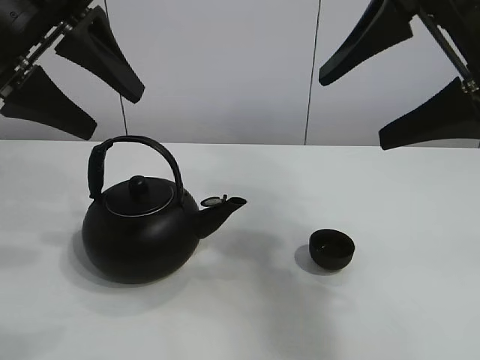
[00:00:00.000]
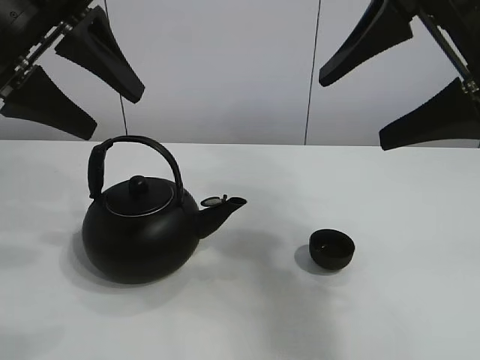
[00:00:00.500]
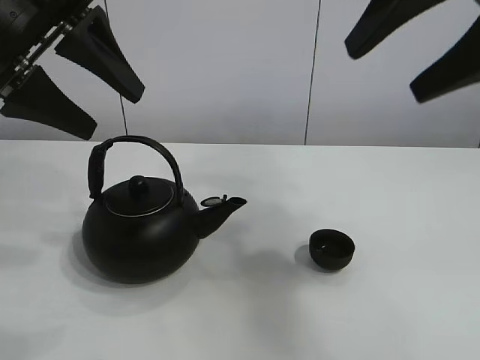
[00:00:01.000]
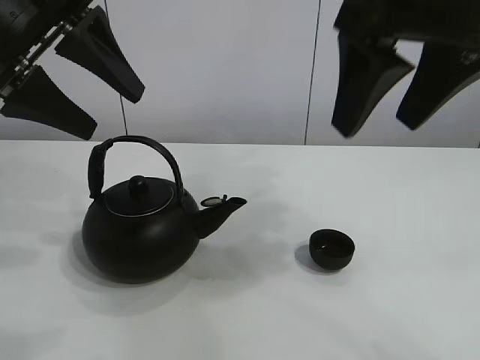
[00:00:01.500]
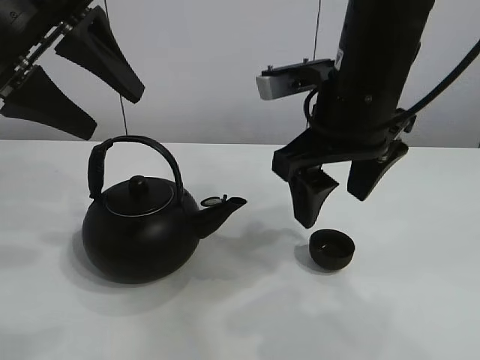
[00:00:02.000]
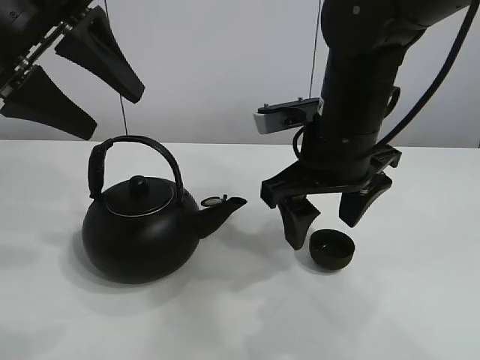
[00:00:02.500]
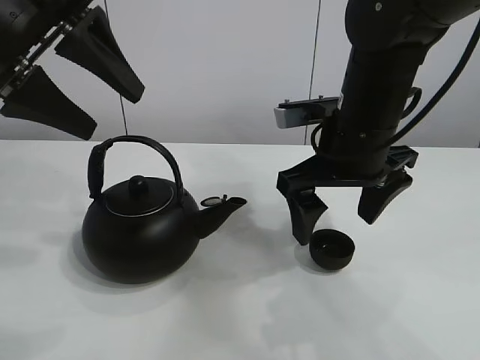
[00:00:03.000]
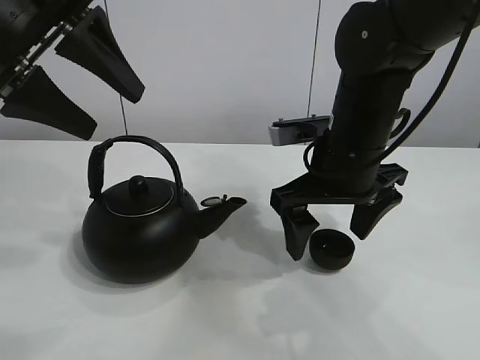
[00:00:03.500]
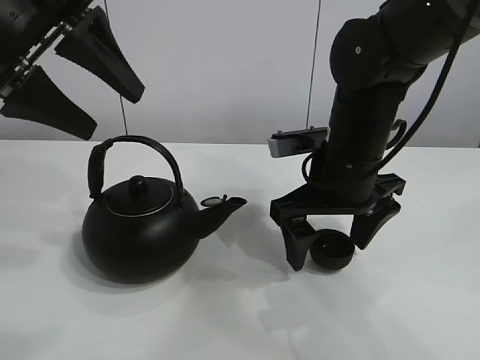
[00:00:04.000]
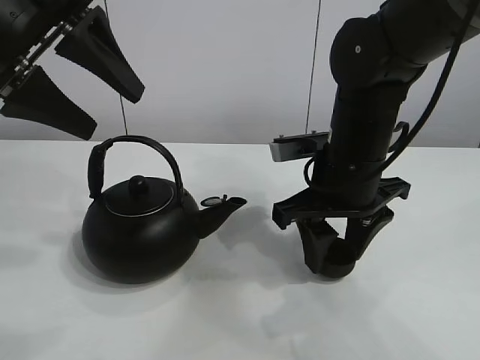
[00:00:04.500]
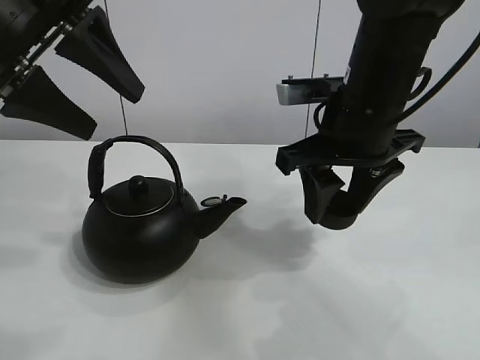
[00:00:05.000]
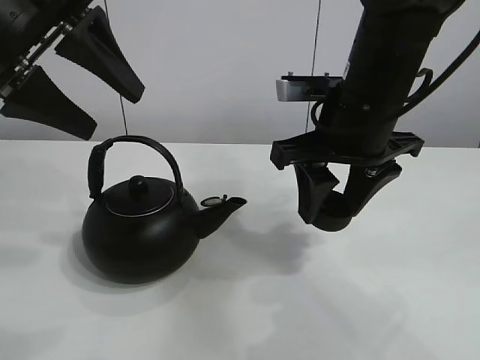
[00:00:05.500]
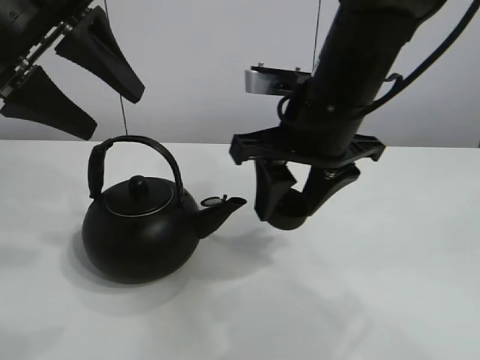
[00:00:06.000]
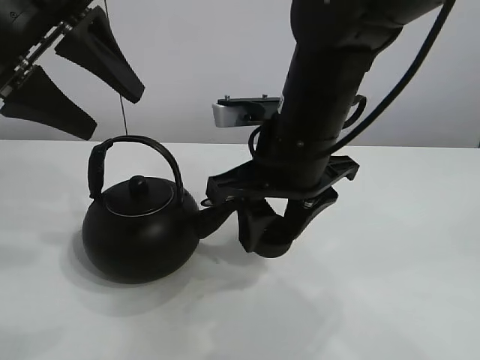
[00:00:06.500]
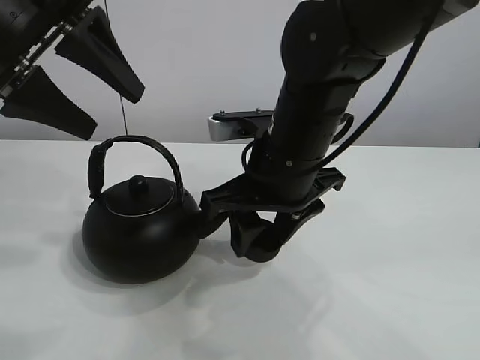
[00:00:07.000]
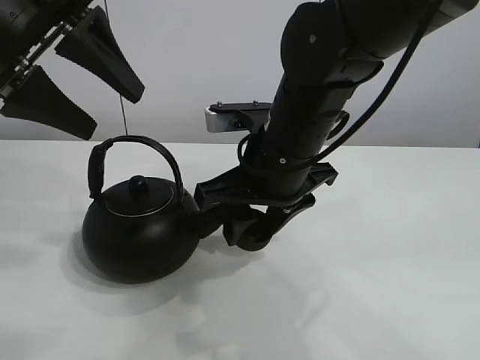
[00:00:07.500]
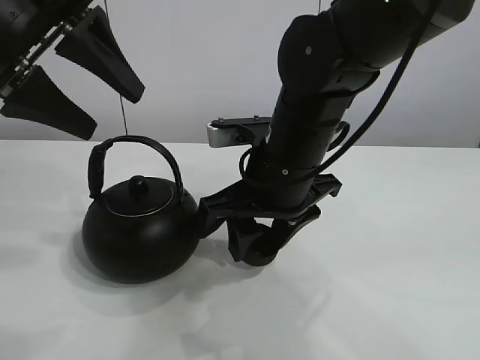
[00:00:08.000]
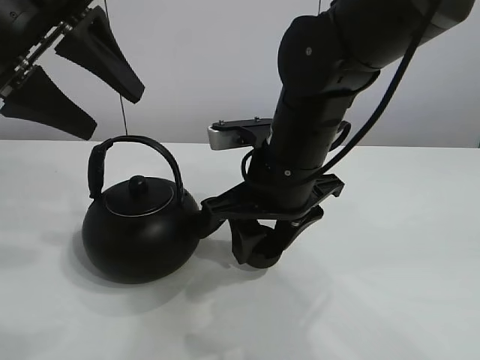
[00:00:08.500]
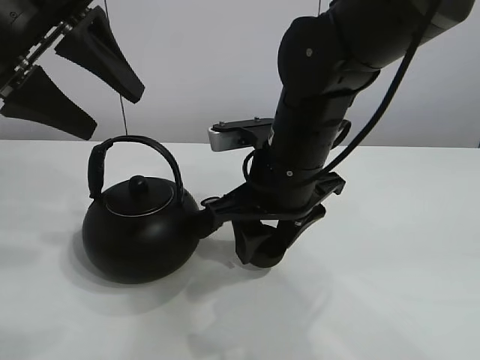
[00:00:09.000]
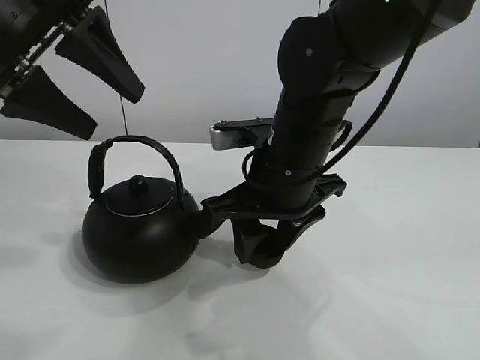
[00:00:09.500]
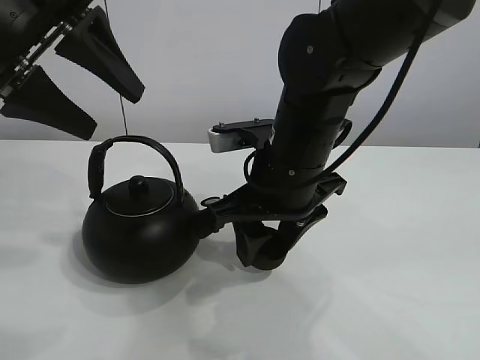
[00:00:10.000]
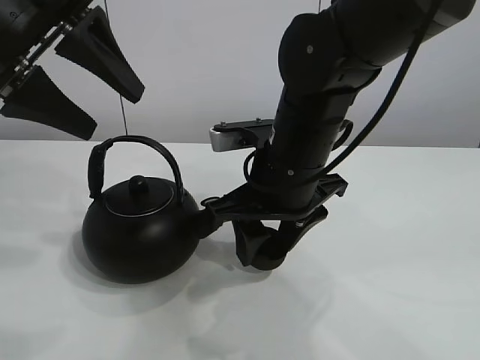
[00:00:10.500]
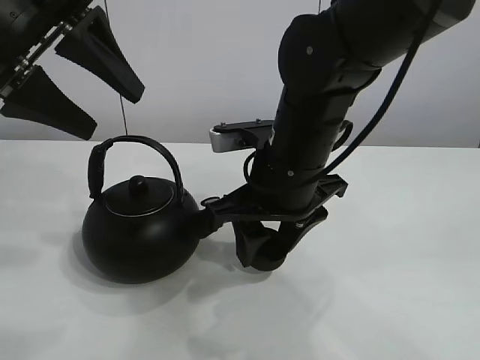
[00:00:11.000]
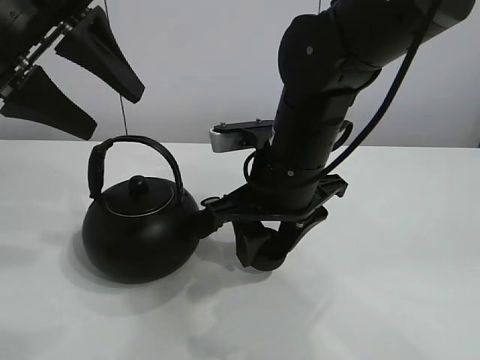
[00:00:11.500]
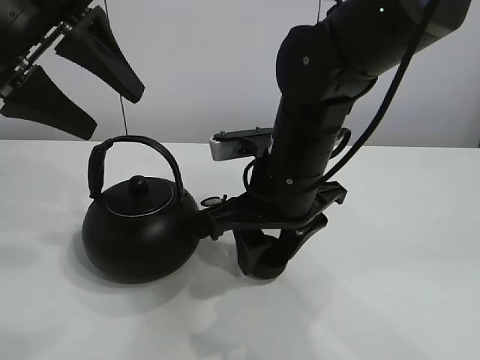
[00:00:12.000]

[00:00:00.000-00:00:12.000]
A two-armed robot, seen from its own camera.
Task of the whole recording: pour tea into the teacup.
Step, 00:00:00.000 to 00:00:04.500: Pick up the teacup with the right gripper.
00:00:02.000 to 00:00:04.000: The right gripper is displaced downward by some 5 cm, and opens its fingers.
00:00:04.000 to 00:00:06.000: The right gripper is displaced upward by roughly 5 cm, and closes its fingers.
00:00:06.000 to 00:00:08.000: The right gripper moves downward, approximately 5 cm.
00:00:08.000 to 00:00:12.000: Neither gripper changes place.

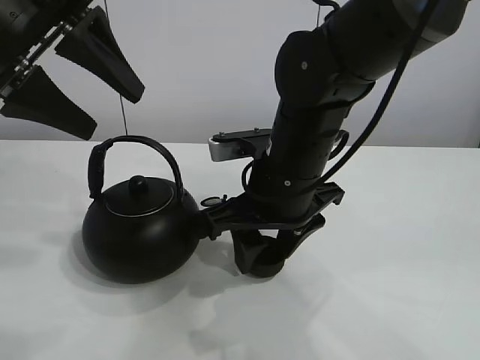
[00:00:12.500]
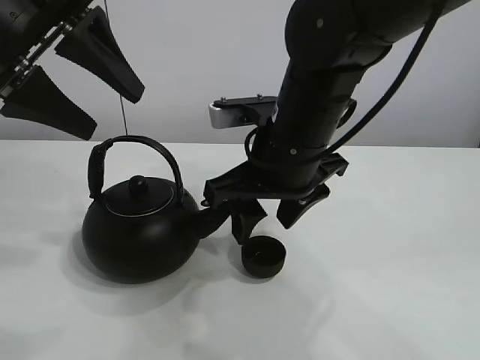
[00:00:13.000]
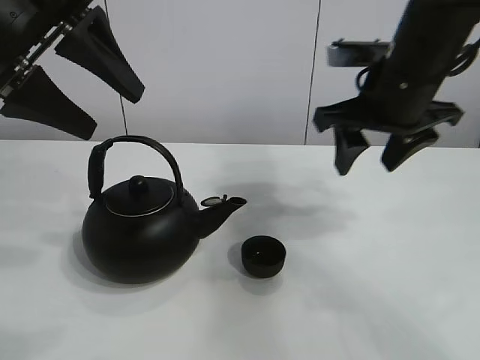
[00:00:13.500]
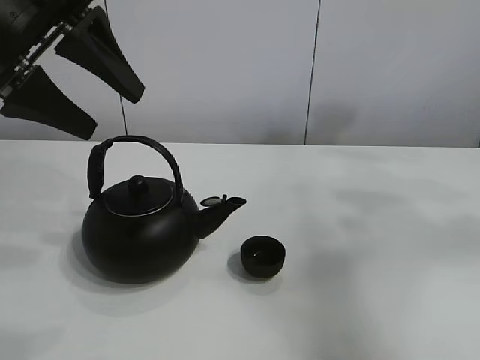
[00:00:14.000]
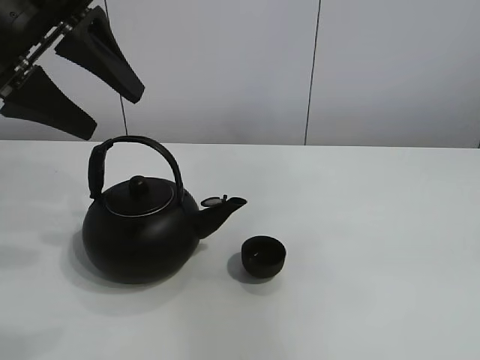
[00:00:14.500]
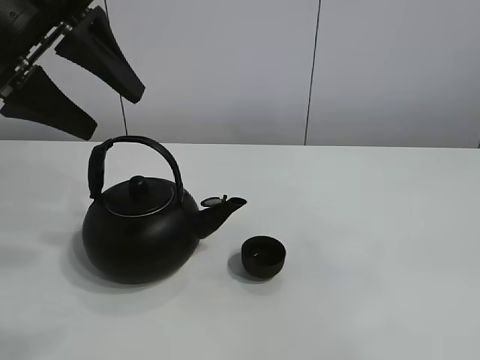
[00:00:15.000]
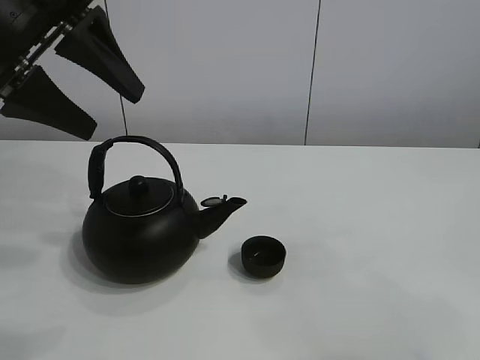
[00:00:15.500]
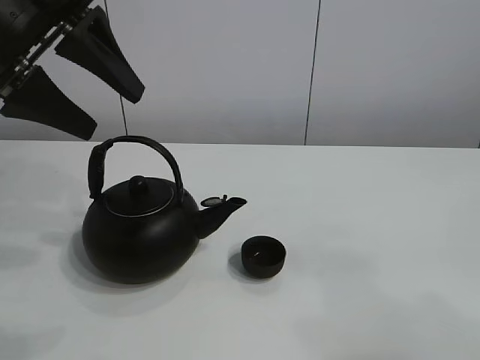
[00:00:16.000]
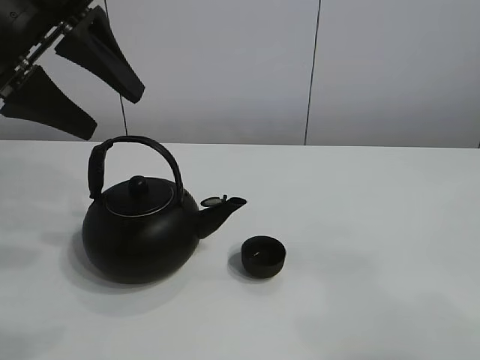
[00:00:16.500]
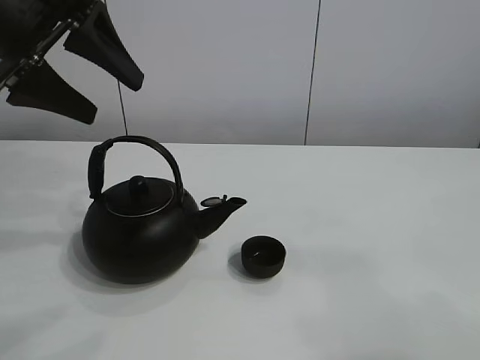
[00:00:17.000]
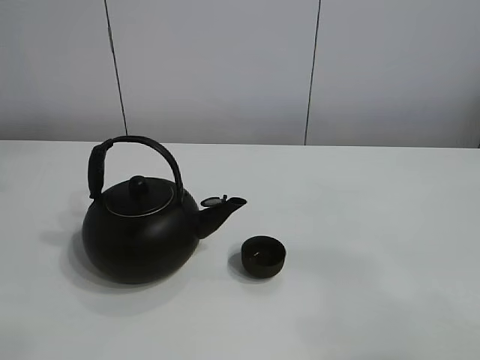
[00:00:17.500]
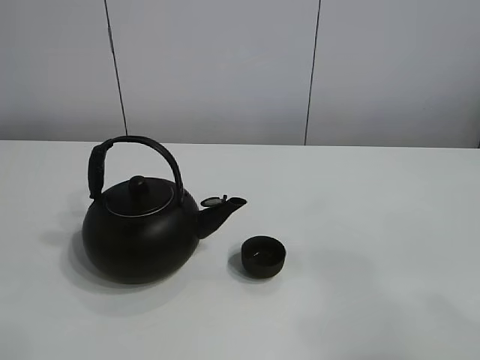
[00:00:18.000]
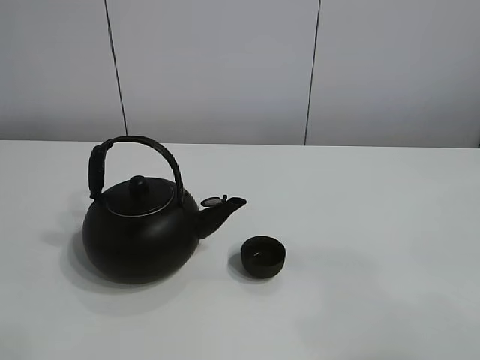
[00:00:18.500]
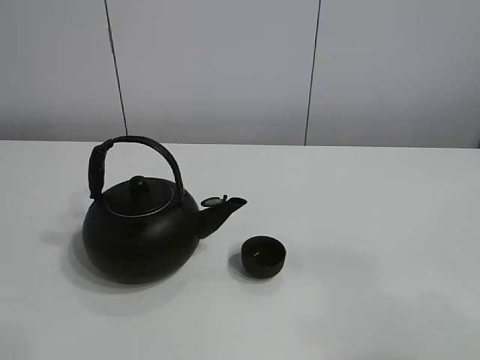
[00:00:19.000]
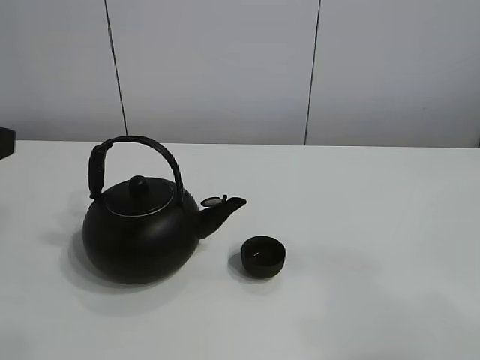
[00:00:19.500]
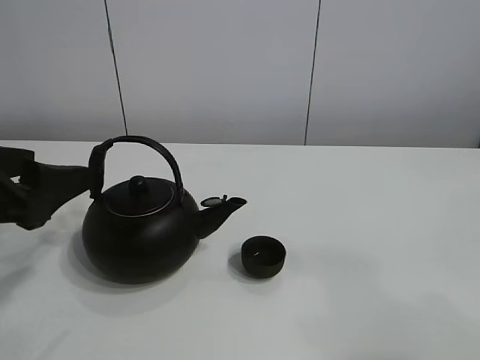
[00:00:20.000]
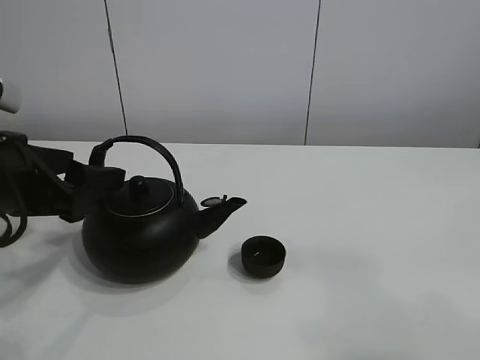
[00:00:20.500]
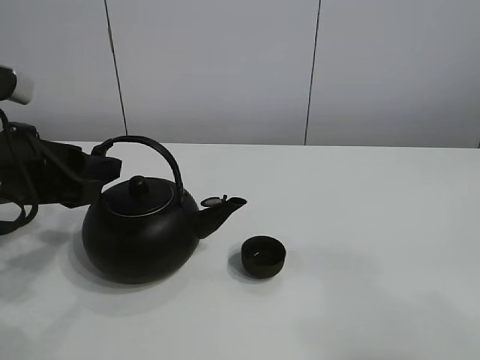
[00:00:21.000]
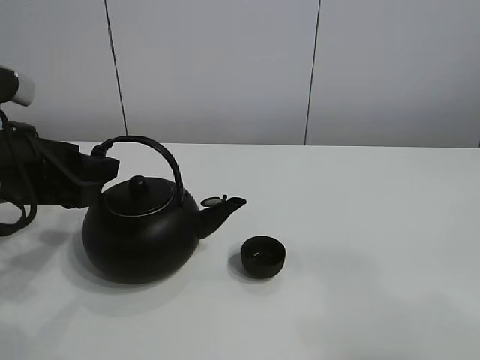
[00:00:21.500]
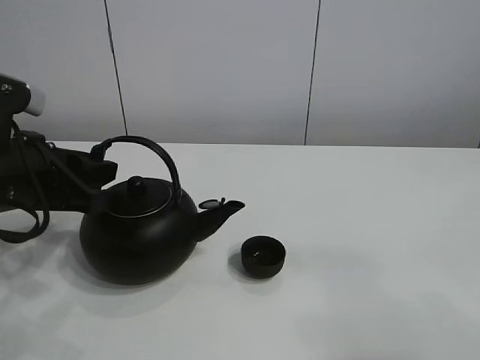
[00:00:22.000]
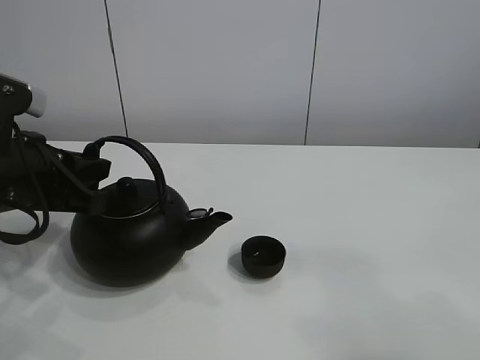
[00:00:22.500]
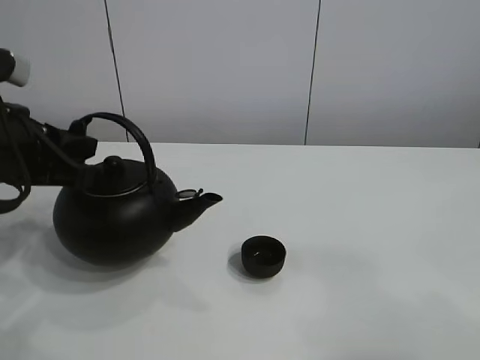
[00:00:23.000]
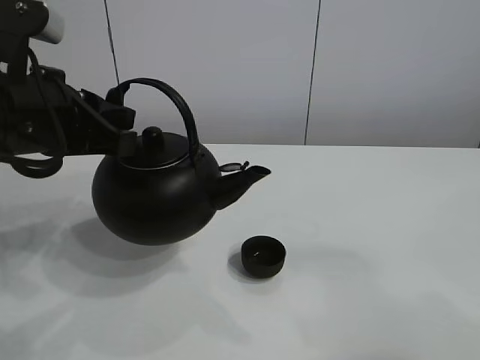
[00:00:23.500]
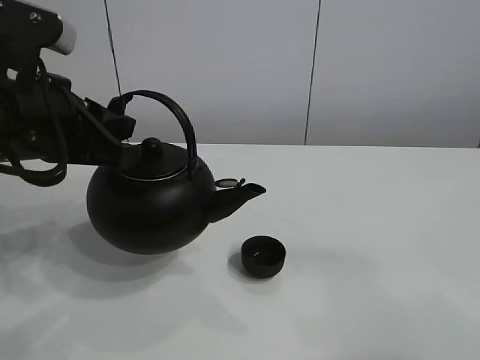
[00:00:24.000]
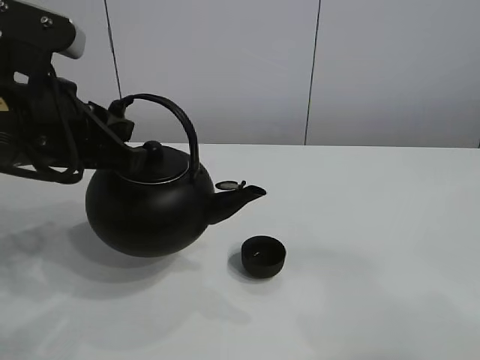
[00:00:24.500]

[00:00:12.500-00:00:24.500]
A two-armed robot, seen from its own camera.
Task of the whole recording: pour tea into the teacup.
Step, 00:00:13.000 to 00:00:22.500: Pick up the teapot with the left gripper.
00:00:12.500 to 00:00:14.500: The right gripper travels upward, backward and to the right by about 50 cm.
00:00:14.500 to 00:00:16.500: The right gripper goes approximately 20 cm downward.
00:00:16.500 to 00:00:18.500: The left gripper travels backward and to the left by approximately 20 cm.
00:00:18.500 to 00:00:20.500: The left gripper travels downward and forward by roughly 25 cm.
00:00:20.500 to 00:00:22.500: The left gripper closes its fingers.
00:00:22.500 to 00:00:24.500: The left gripper goes some 5 cm upward.

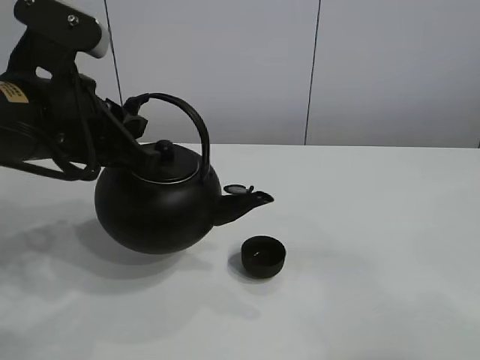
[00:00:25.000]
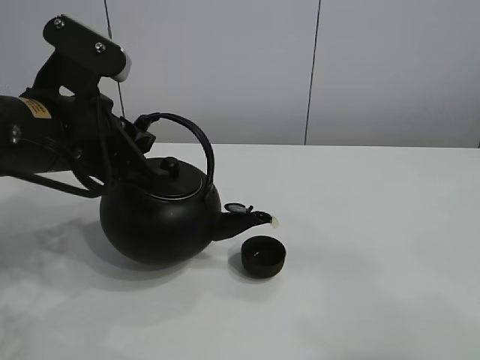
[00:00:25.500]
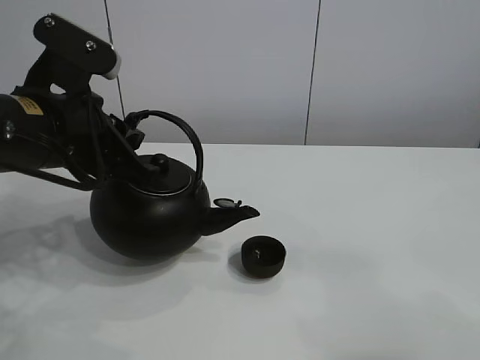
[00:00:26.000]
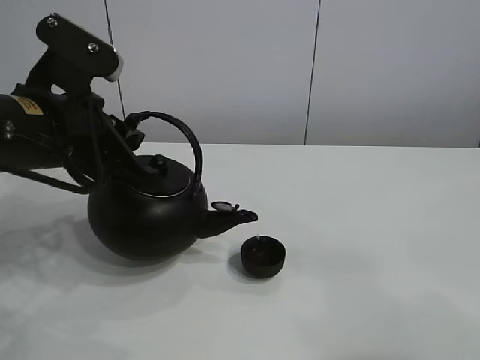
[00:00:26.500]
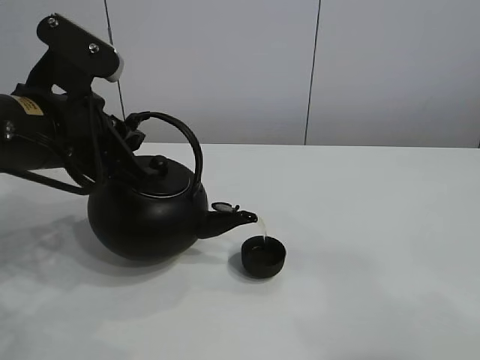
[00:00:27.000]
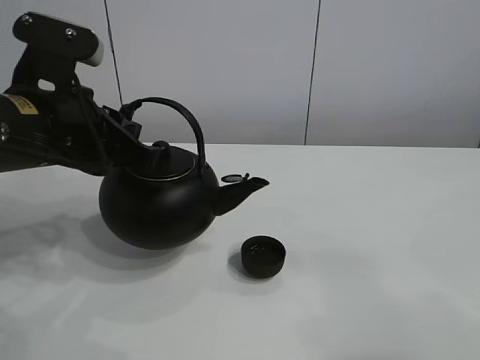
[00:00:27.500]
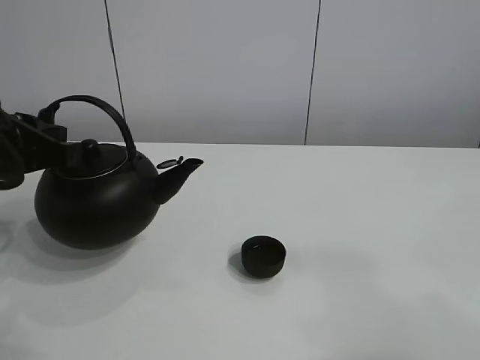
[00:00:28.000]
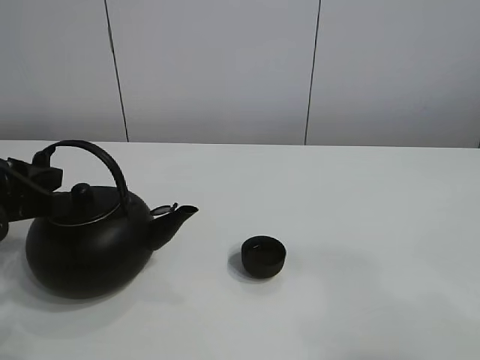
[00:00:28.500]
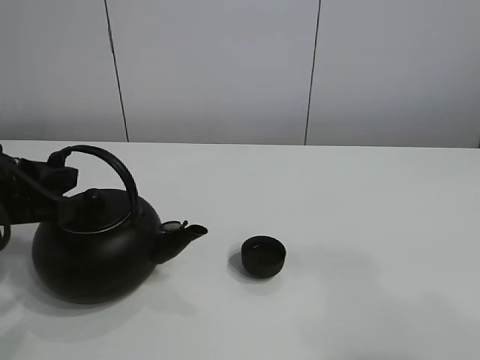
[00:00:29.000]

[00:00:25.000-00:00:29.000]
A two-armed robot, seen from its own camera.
Task of the whole recording: pour tea into the teacup.
Step, 00:00:25.000 to 00:00:27.000: Pour tea into the teacup with the left gripper.
00:00:25.000 to 00:00:27.000: The grippers stay close to where they were, moving slightly.
00:00:27.000 to 00:00:29.000: The left gripper moves to the left, about 5 cm.
